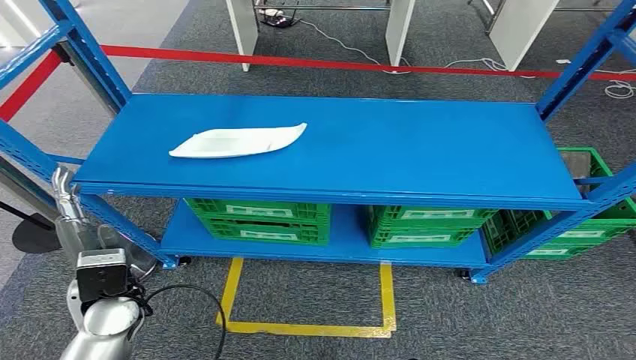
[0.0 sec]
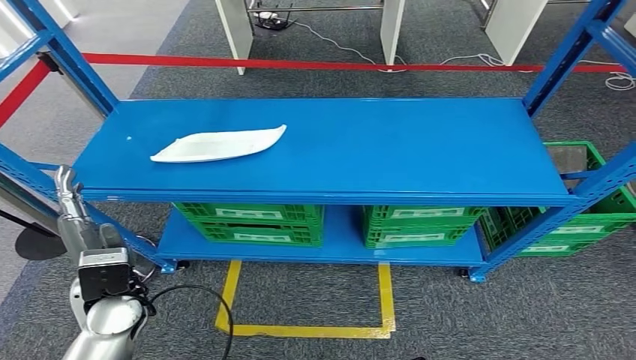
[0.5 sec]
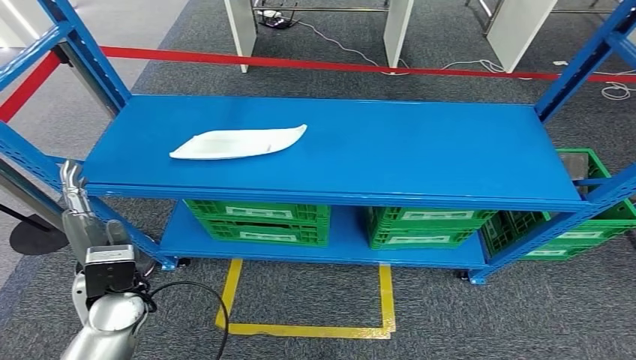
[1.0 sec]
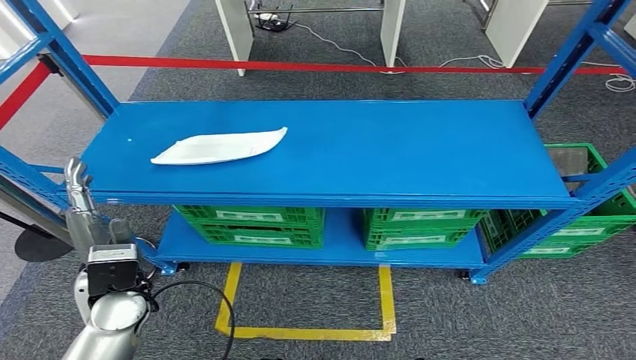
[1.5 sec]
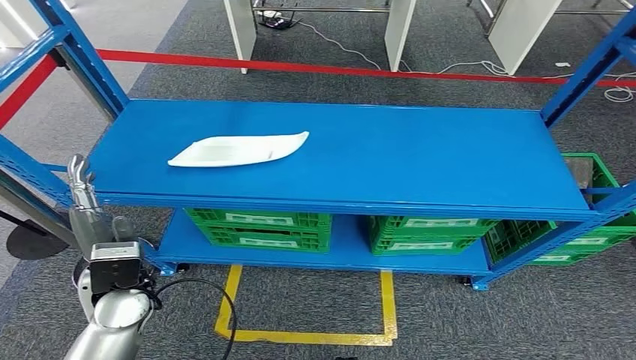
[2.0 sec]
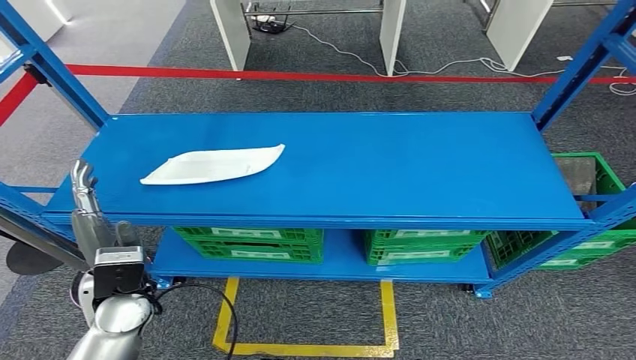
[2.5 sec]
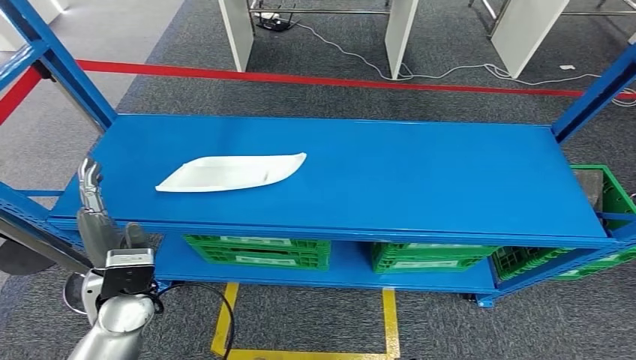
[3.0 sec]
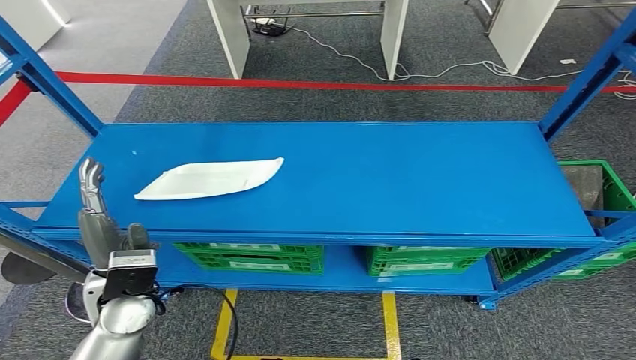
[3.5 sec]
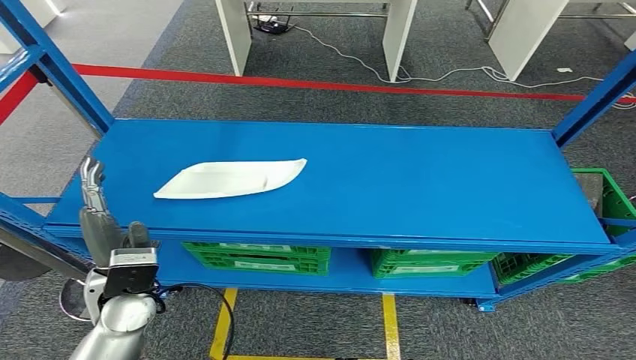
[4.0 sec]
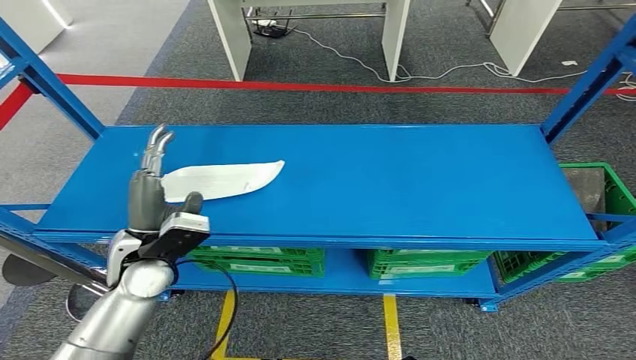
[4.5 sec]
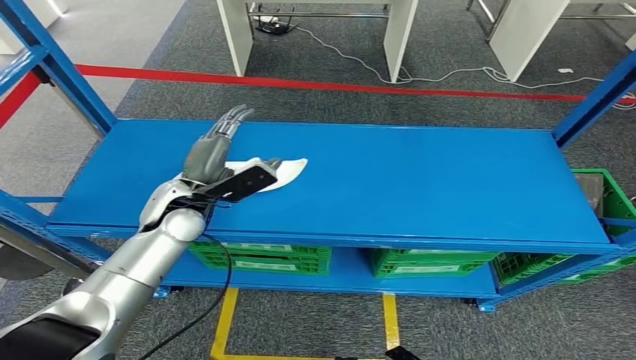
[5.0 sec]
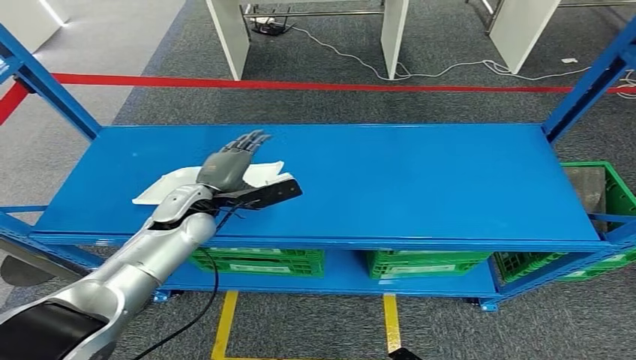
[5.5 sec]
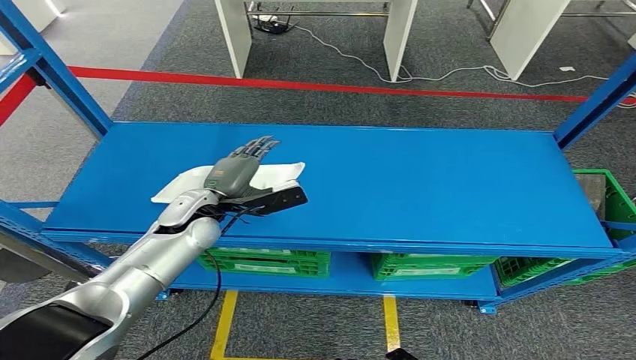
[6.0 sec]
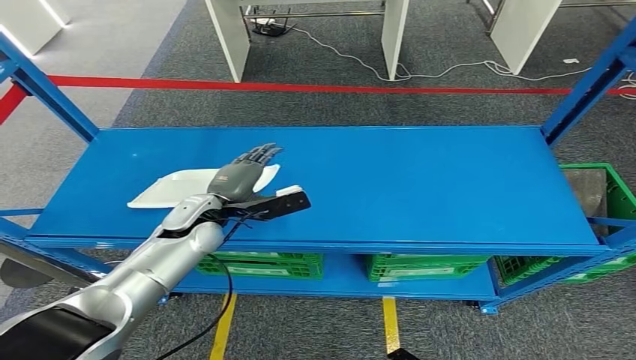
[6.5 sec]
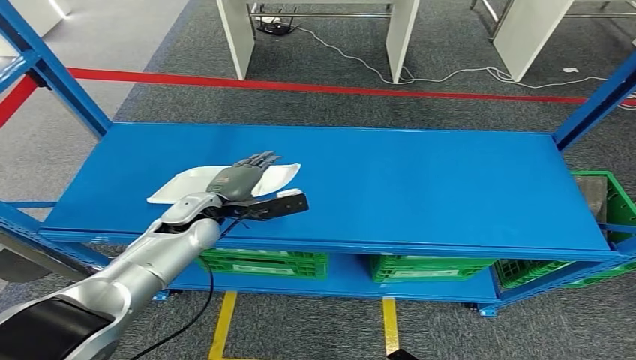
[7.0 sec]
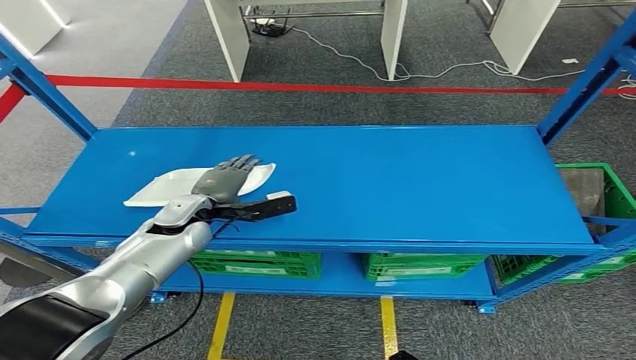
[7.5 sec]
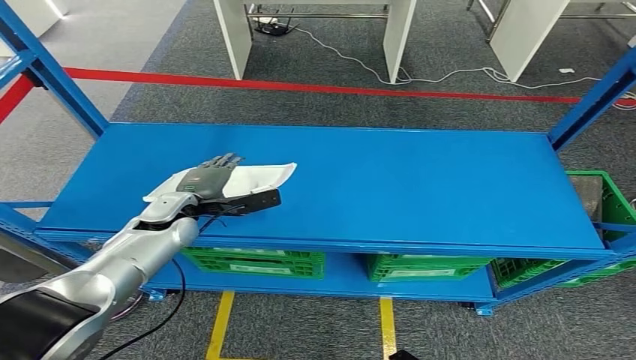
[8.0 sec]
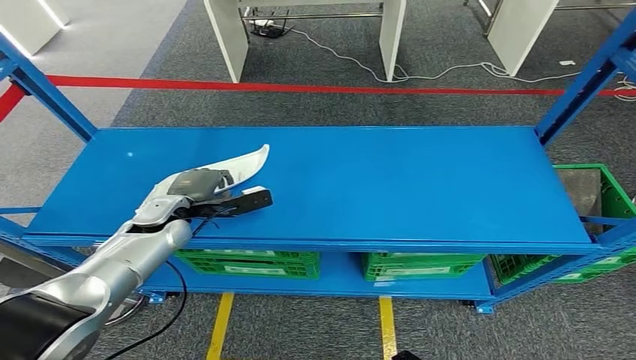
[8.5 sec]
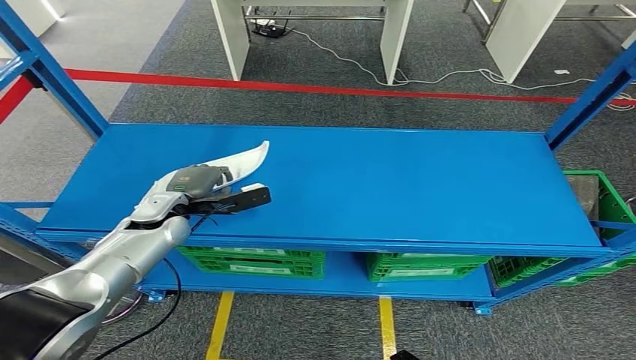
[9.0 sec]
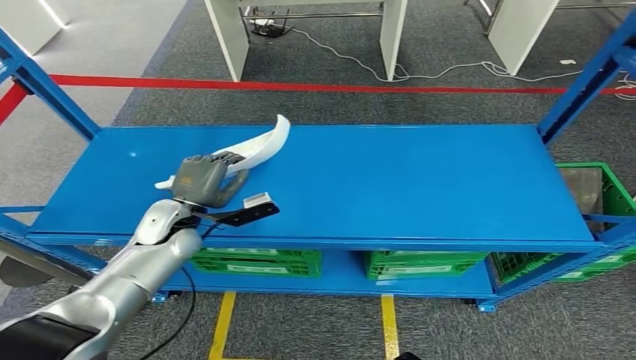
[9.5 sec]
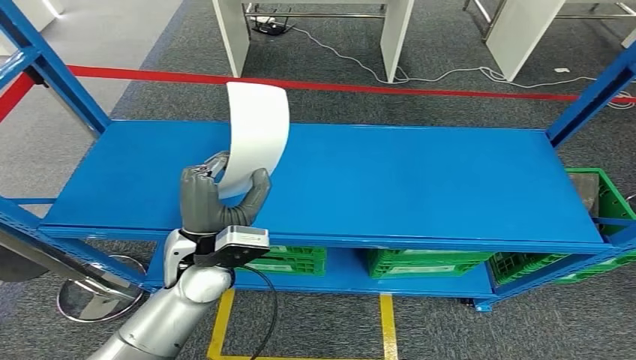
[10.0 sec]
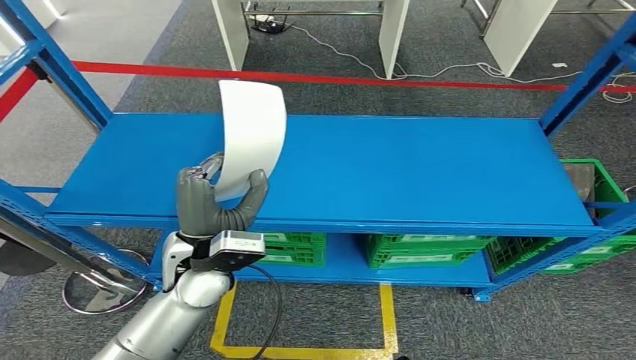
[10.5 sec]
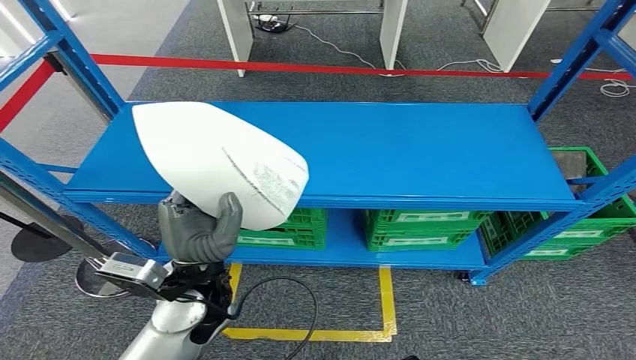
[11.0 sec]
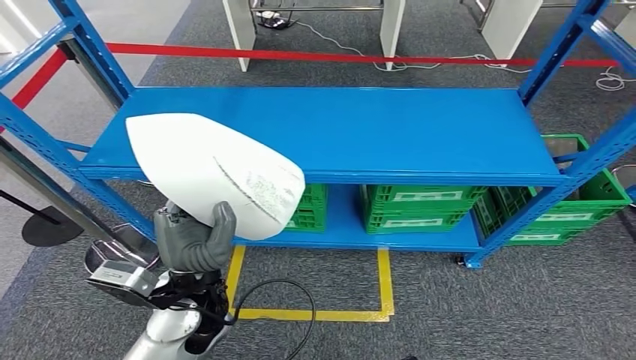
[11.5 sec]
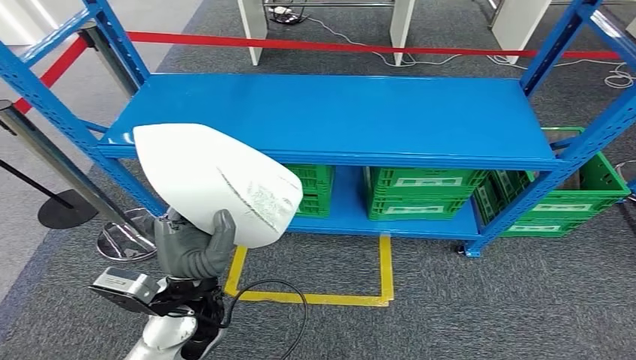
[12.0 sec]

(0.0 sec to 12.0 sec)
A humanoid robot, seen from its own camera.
Step, 0.0 sec - 10.5 sec: Pick up the small parts from the shelf.
4.0 sec - 6.0 sec: The left hand moves forward, approximately 15 cm.
6.0 sec - 8.0 sec: The left hand changes place by some 5 cm.

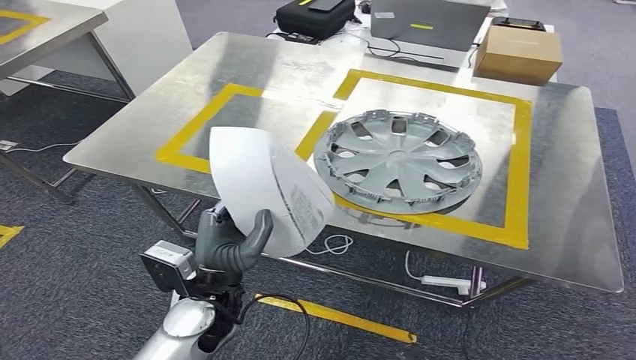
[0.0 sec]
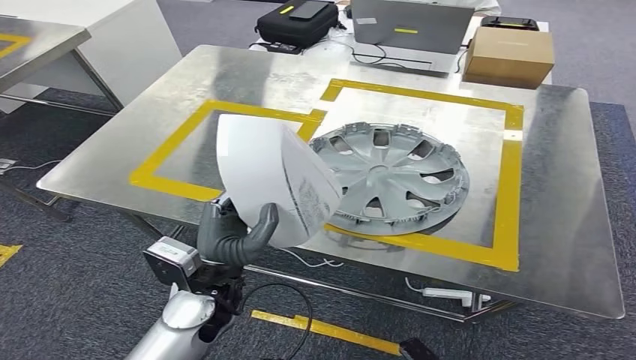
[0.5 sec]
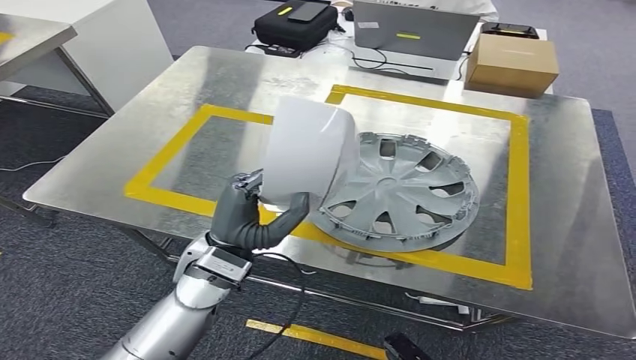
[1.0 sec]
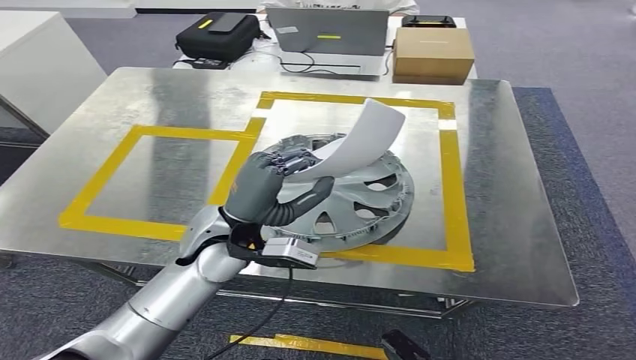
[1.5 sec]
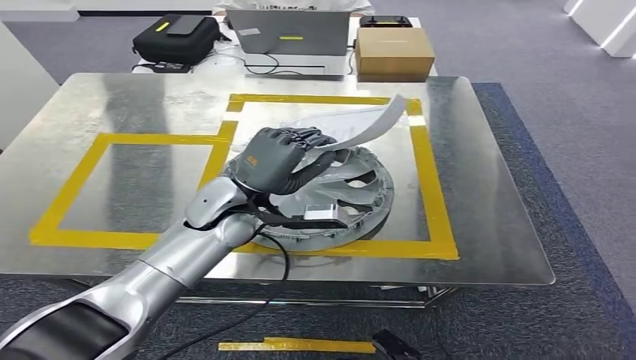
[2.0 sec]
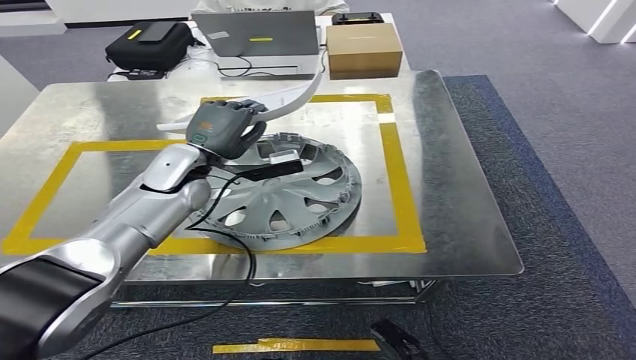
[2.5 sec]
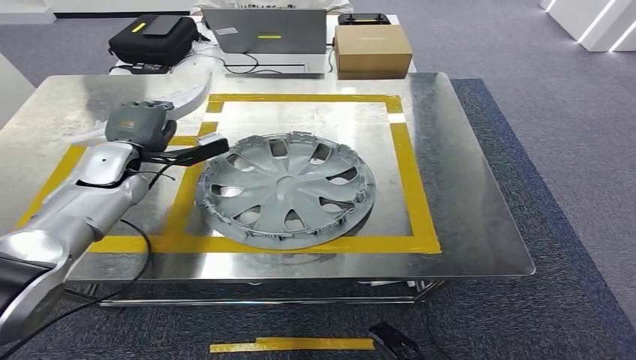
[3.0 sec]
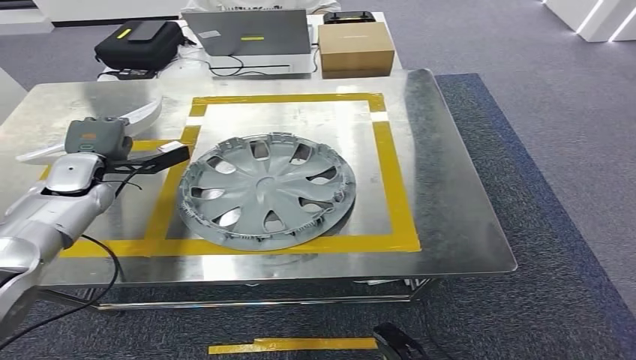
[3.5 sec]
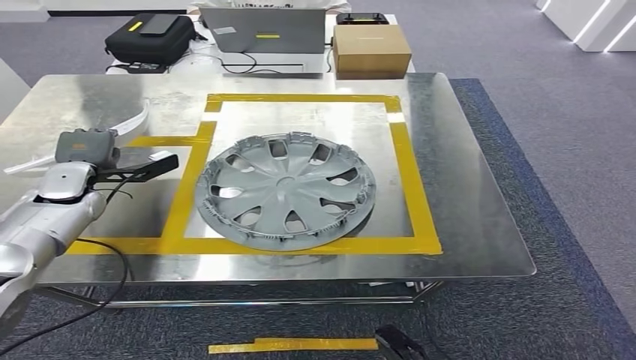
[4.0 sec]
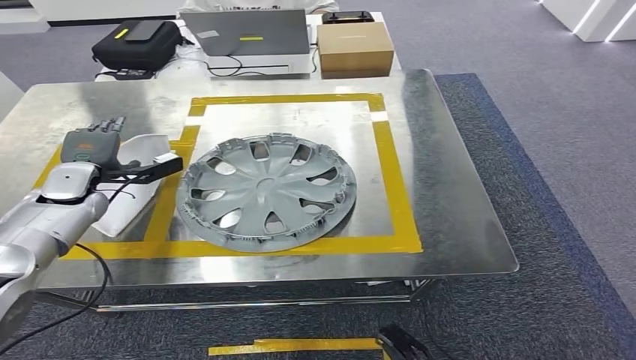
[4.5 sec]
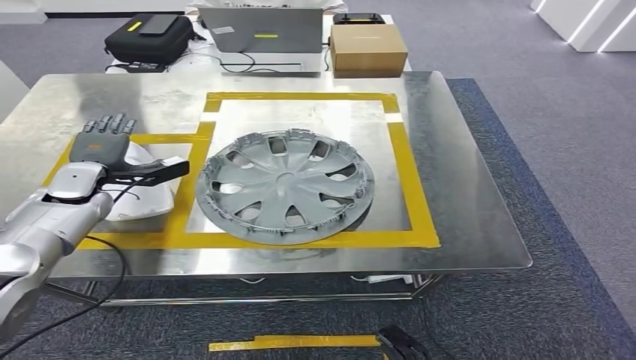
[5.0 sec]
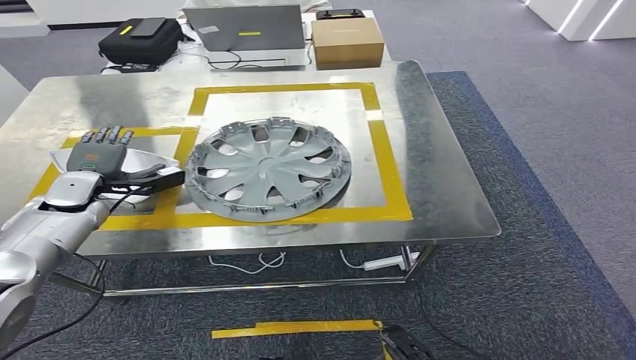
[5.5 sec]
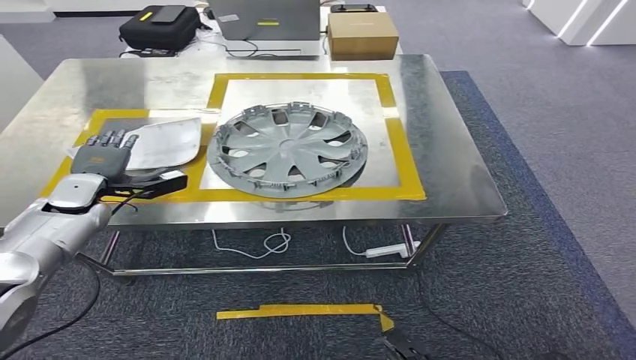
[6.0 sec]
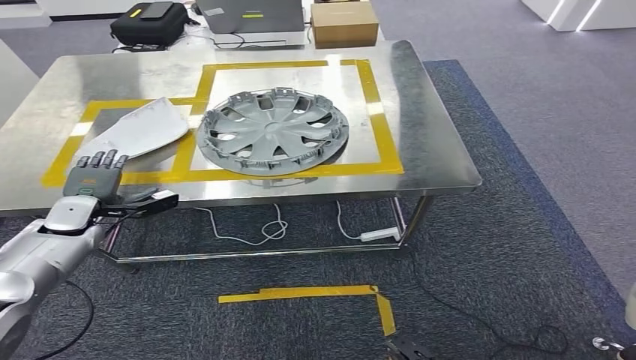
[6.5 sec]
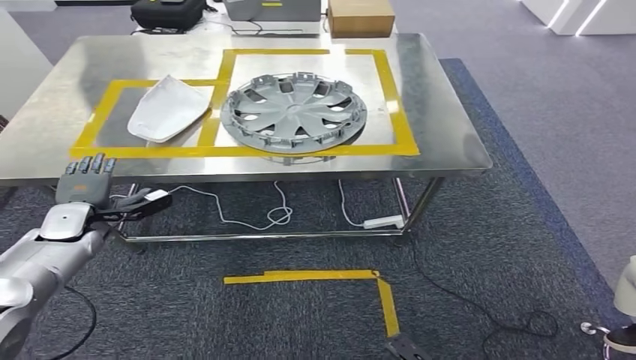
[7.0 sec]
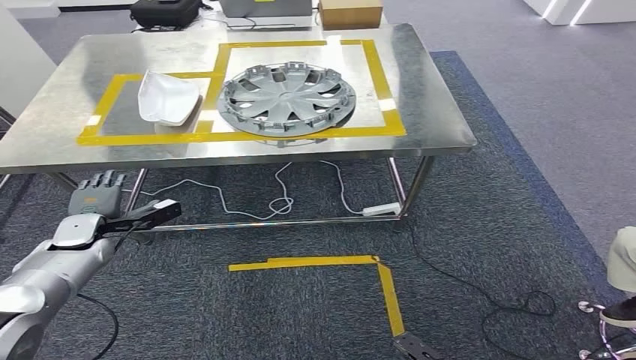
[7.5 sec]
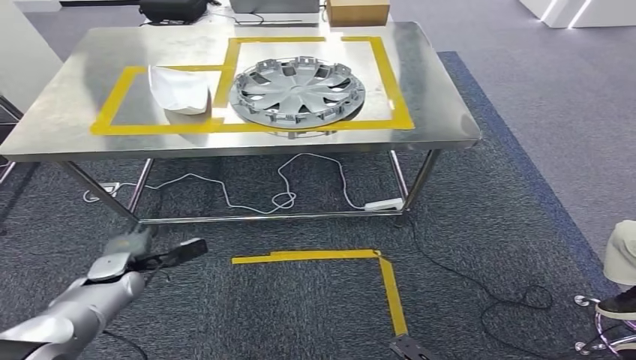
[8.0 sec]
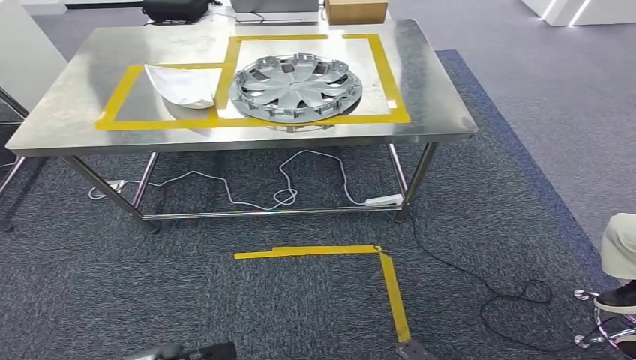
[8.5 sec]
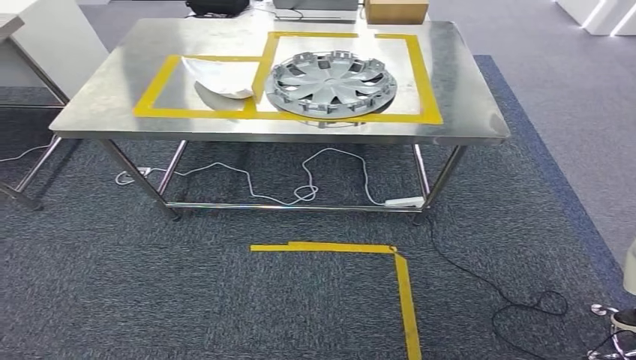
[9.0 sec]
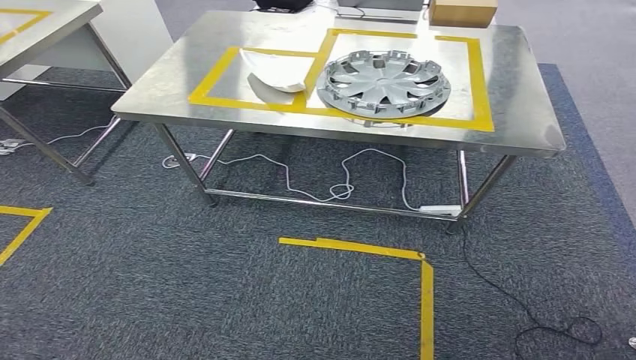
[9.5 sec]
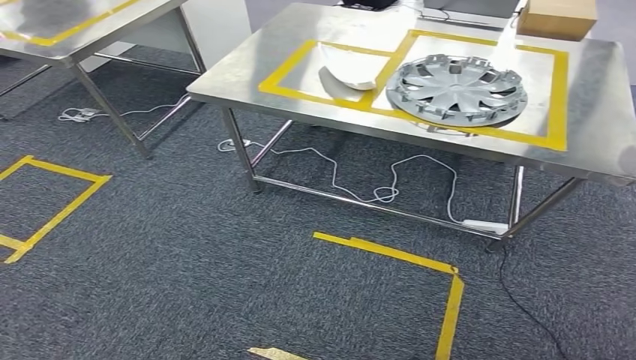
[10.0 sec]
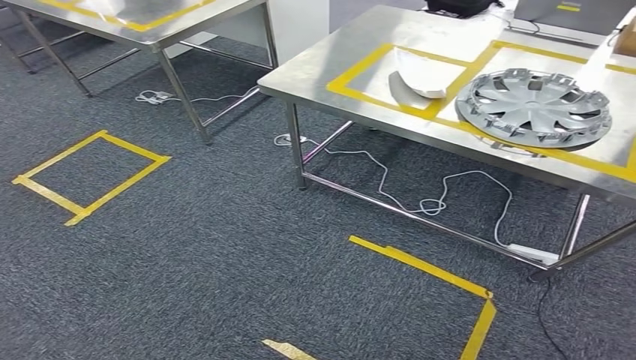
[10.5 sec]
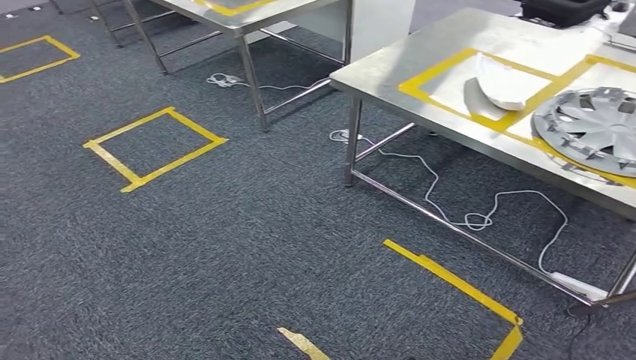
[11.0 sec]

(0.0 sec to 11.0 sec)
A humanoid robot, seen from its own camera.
Step, 1.5 sec - 6.5 sec: Insert the small parts into the corresponding holes on the workbench.
